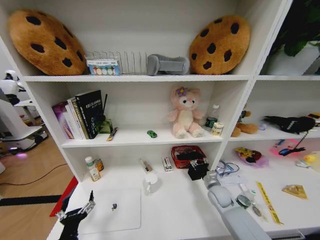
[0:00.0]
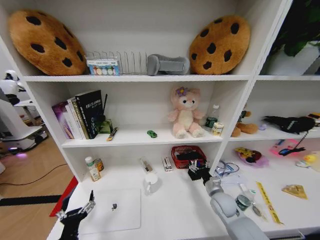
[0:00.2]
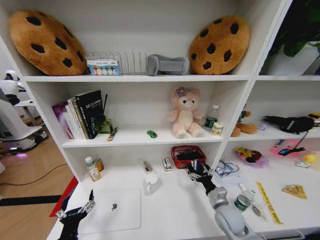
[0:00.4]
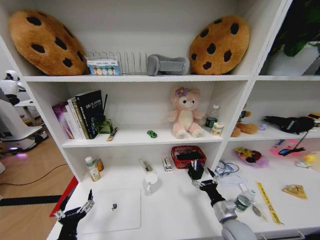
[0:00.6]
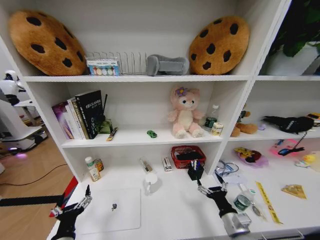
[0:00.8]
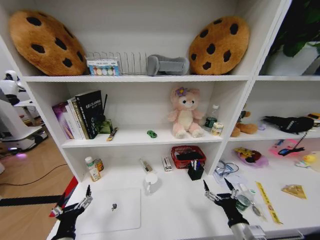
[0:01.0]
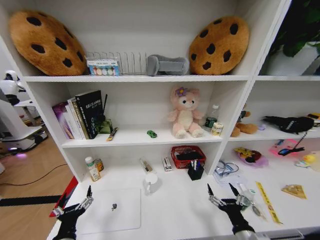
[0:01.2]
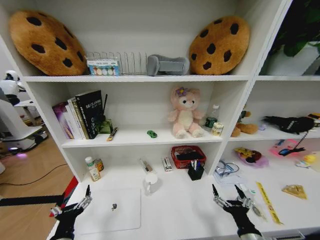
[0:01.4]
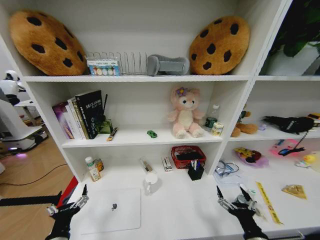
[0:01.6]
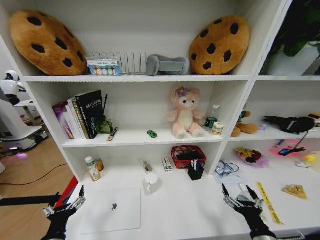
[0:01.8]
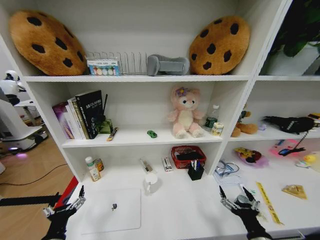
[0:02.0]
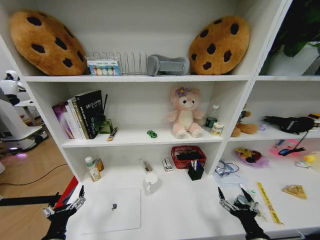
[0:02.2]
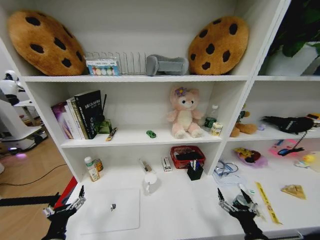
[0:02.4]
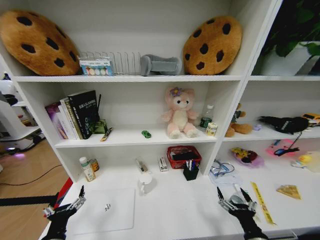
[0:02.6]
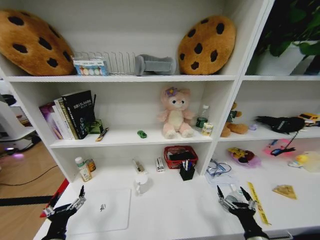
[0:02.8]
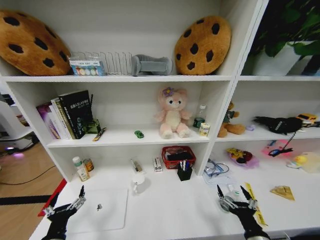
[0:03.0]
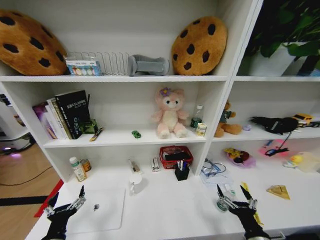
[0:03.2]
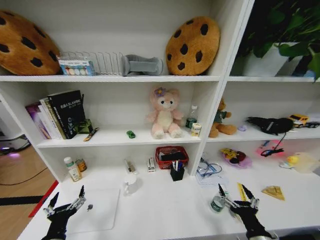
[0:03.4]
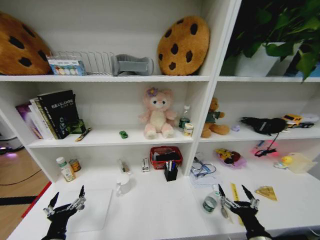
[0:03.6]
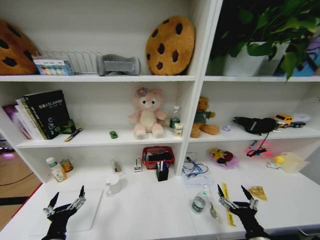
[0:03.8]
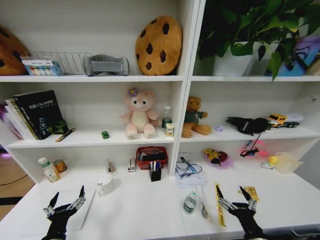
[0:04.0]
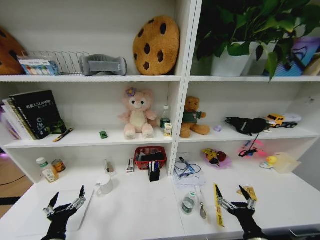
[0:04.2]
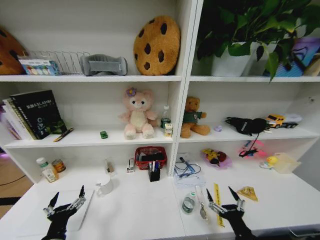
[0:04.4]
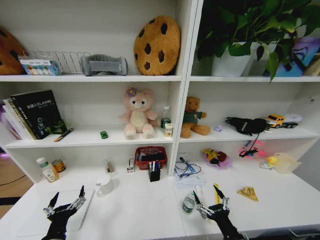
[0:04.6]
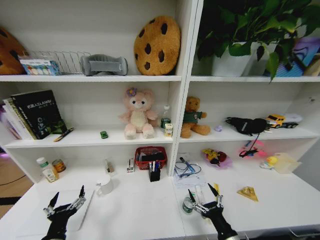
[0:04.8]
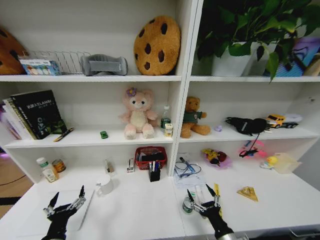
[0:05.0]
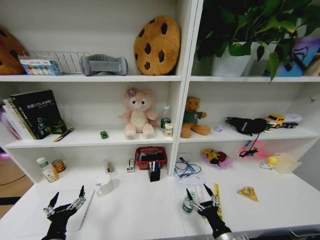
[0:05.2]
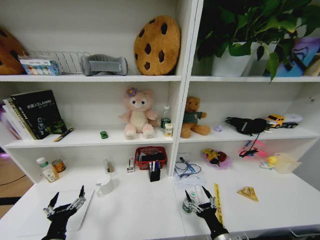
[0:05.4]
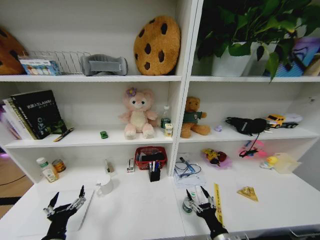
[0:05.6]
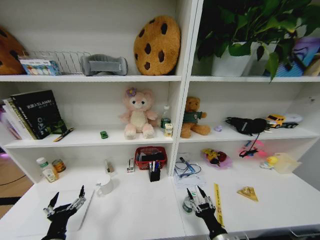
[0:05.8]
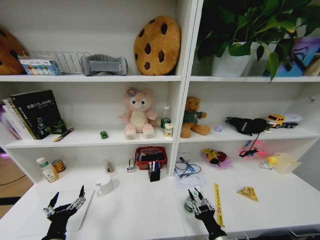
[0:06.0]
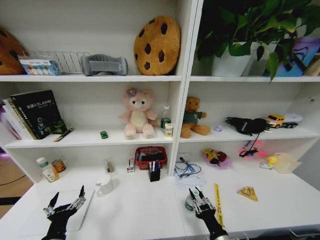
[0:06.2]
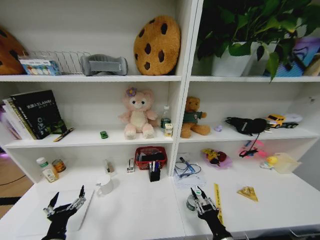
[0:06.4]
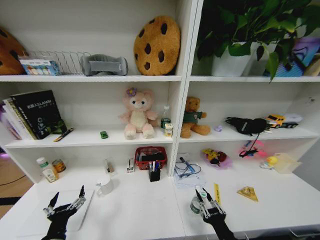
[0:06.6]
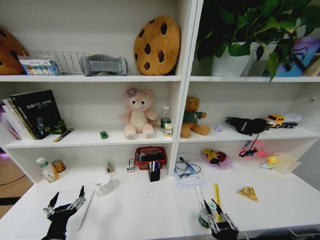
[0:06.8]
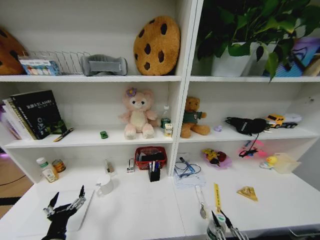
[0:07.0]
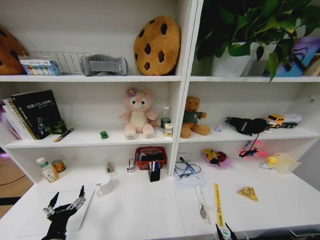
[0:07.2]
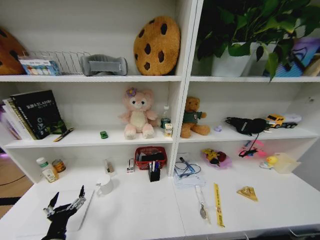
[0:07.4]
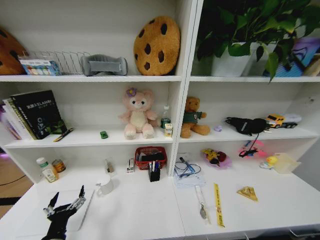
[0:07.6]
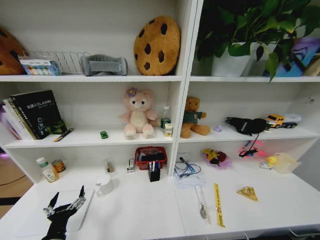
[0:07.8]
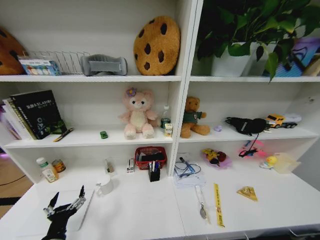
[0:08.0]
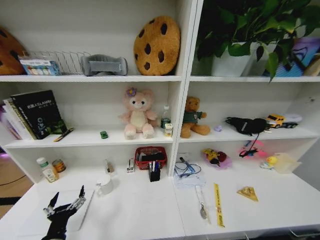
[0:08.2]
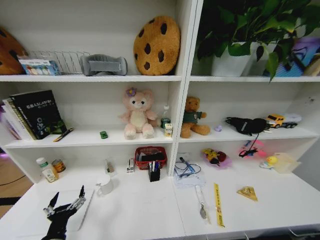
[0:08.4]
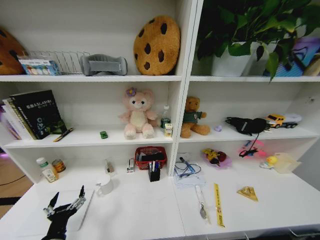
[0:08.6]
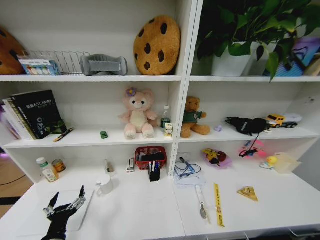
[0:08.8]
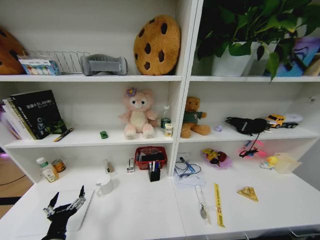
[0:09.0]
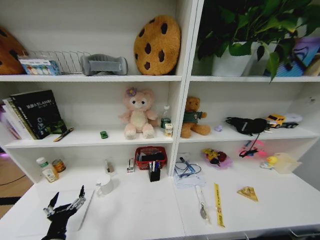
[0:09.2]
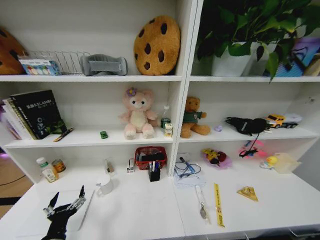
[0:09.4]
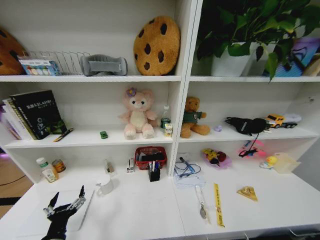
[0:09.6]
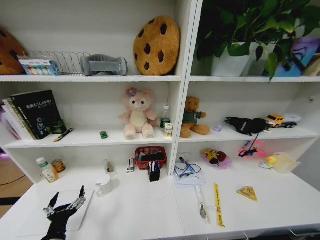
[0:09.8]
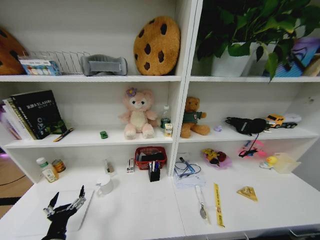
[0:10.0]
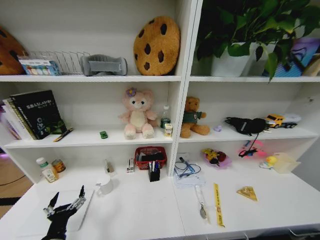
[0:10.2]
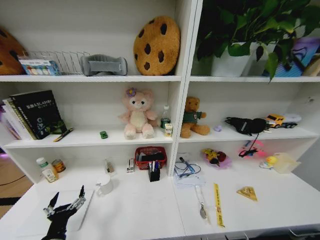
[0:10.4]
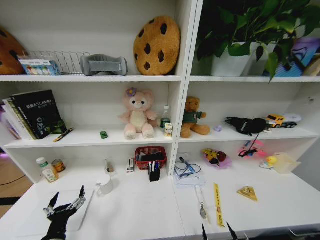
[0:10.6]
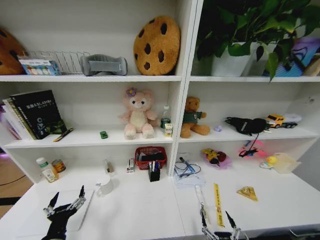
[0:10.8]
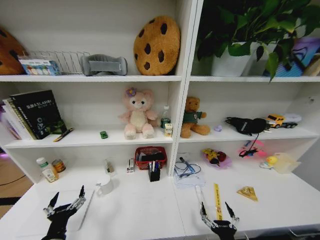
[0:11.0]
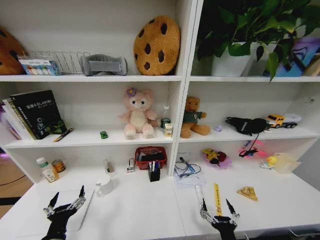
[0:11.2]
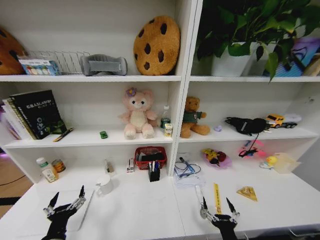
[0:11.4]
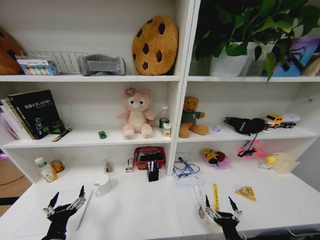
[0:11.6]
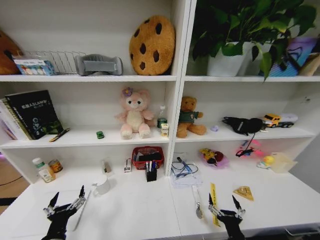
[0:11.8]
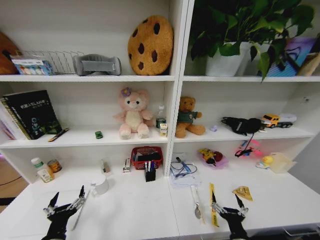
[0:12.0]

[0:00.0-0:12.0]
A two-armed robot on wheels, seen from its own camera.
Task of the whole recording: Organize the objects on the table.
0:00.0 to 0:01.6: The right gripper heads backward, covering approximately 25 cm, and opens.
0:04.4 to 0:06.0: The right gripper ends up some 5 cm from where it was, and closes up.
0:06.0 to 0:07.6: The right gripper goes roughly 20 cm backward.
0:09.0 to 0:10.4: The right gripper goes roughly 30 cm upward and backward, and opens up.
0:10.4 to 0:12.0: The right gripper travels forward by approximately 15 cm.

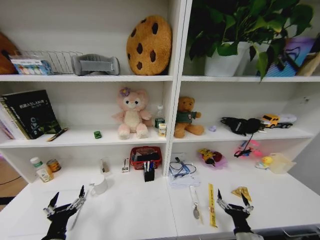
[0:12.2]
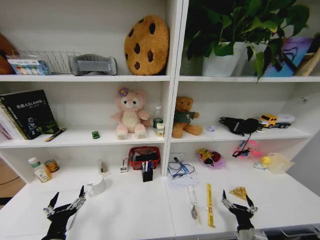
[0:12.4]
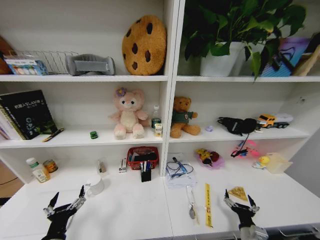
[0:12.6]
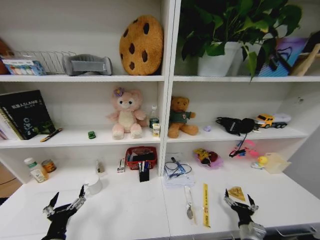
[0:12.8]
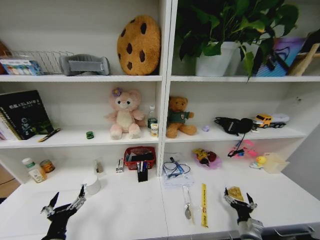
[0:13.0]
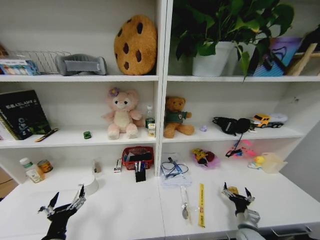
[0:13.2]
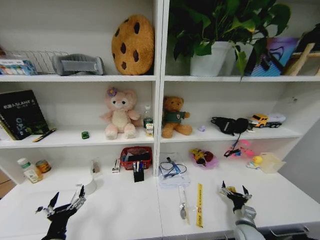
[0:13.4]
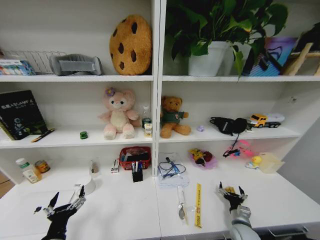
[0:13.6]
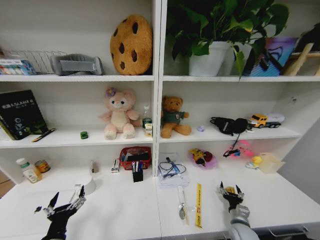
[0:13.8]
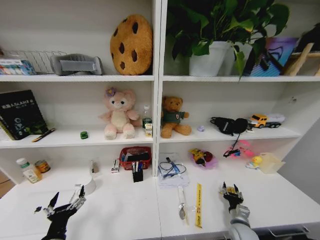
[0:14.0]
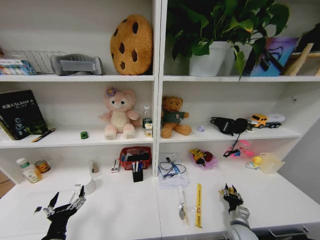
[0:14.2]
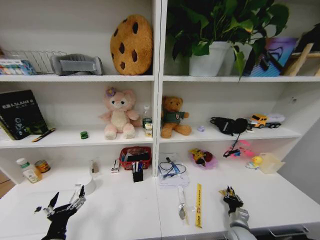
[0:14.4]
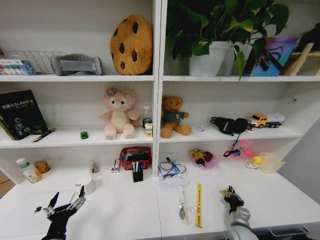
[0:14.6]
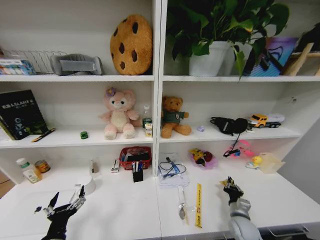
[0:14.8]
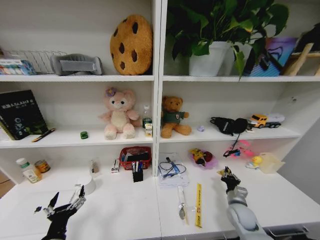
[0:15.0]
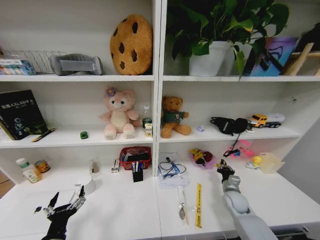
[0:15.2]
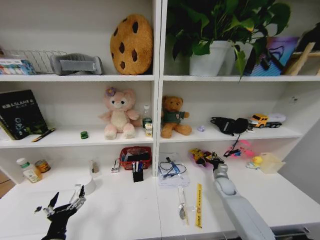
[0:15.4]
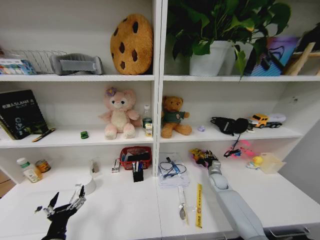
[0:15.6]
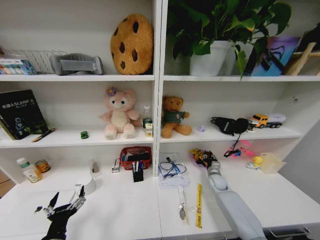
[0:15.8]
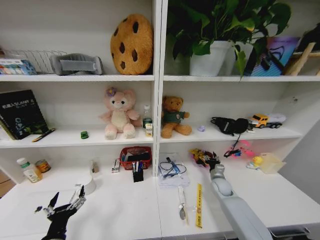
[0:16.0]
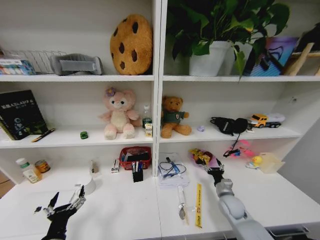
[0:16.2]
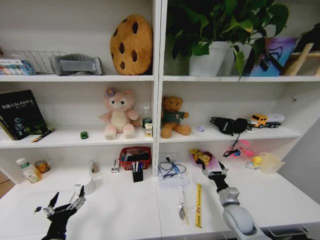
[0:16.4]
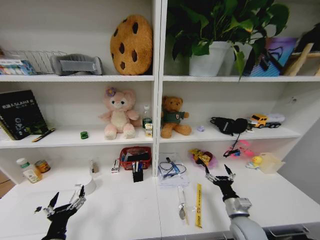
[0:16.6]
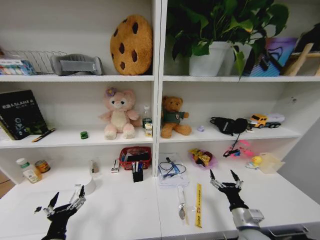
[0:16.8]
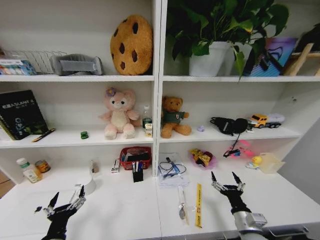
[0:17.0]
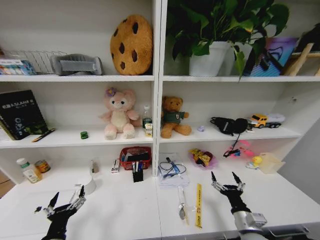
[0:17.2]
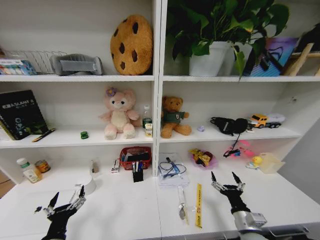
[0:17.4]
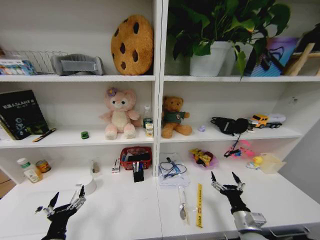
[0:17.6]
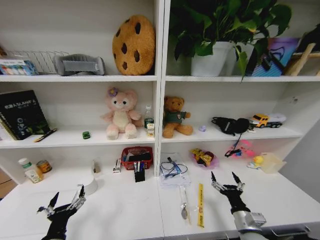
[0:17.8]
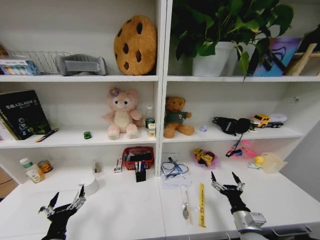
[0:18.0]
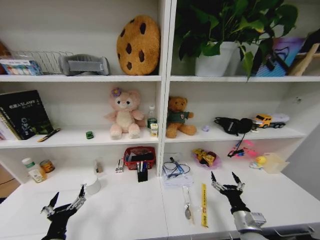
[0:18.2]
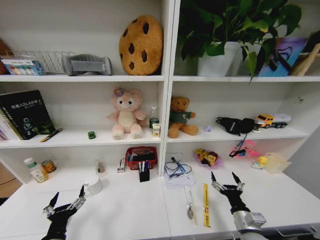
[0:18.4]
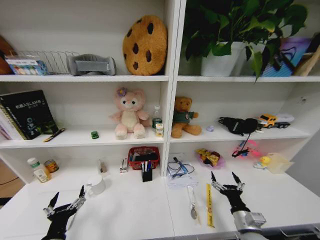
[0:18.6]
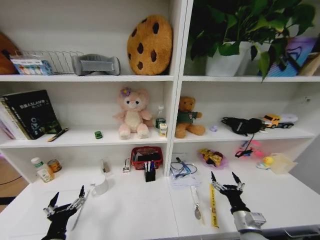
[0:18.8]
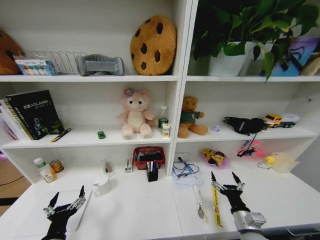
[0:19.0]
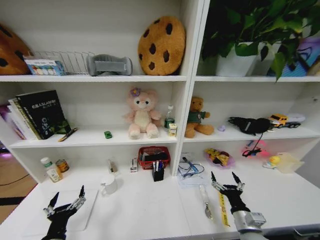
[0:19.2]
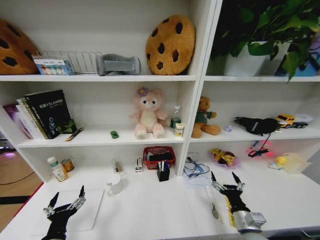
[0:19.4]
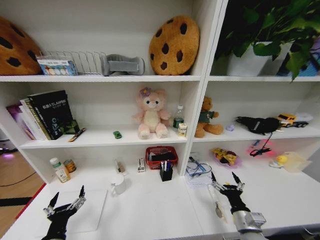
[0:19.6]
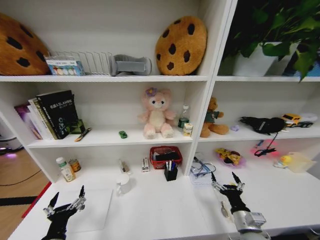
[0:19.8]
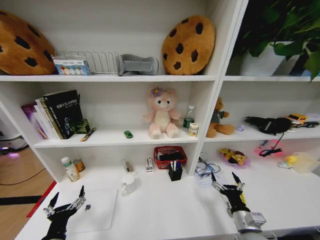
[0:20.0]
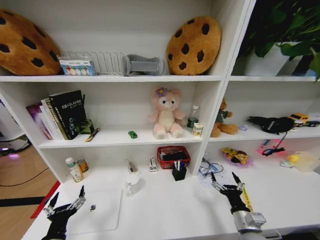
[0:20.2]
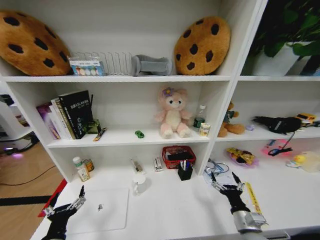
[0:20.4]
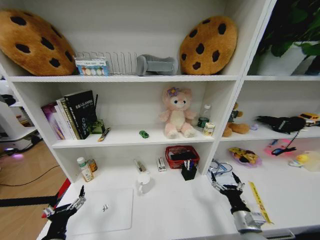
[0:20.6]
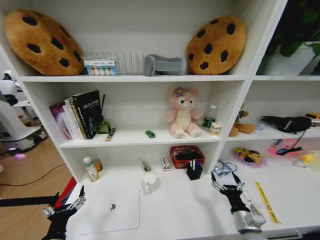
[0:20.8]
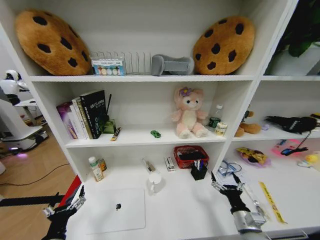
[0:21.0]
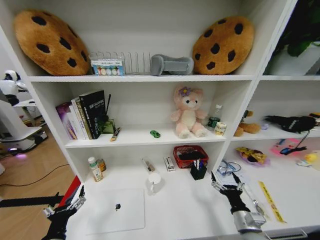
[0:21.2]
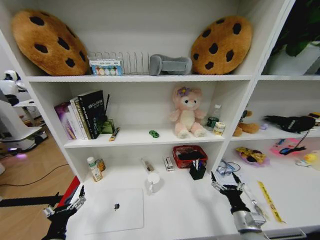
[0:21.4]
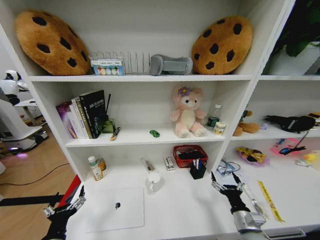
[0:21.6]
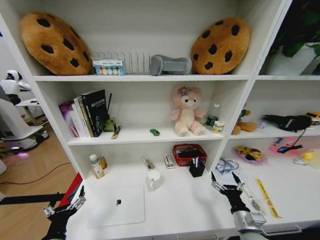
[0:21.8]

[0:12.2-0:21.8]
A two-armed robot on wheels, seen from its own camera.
Task of the whole recording: Organize the objects on the table.
0:12.2 to 0:13.8: The right gripper heads forward, downward and to the right, covering roughly 15 cm.
0:13.8 to 0:15.4: The right gripper moves forward, roughly 20 cm, and closes its fingers.
0:15.4 to 0:17.0: The right gripper heads backward, covering some 25 cm, and opens its fingers.

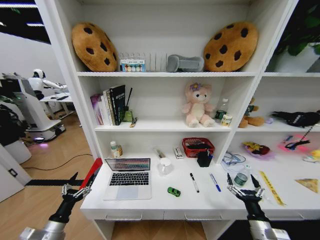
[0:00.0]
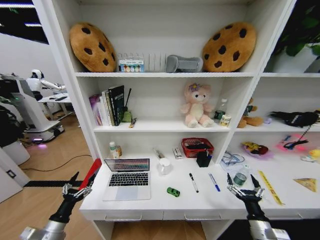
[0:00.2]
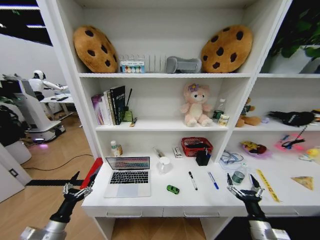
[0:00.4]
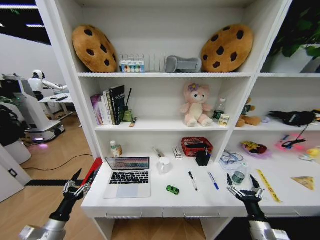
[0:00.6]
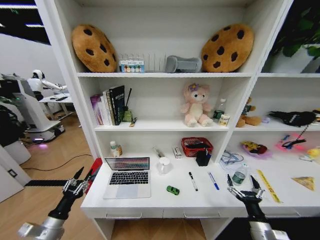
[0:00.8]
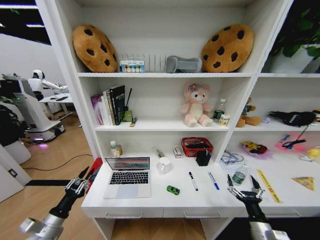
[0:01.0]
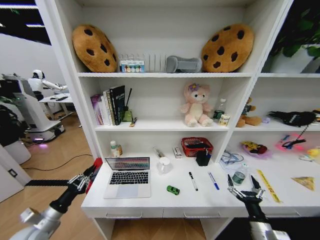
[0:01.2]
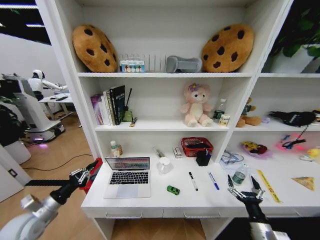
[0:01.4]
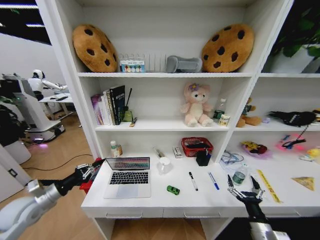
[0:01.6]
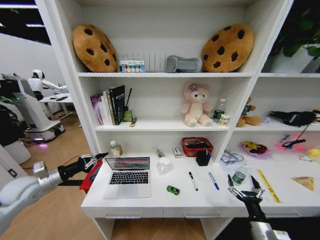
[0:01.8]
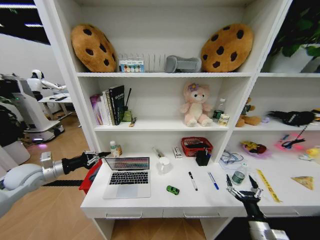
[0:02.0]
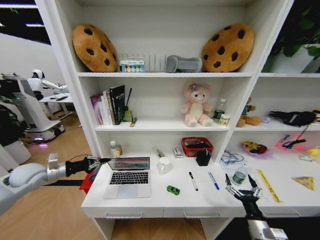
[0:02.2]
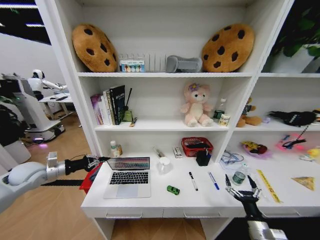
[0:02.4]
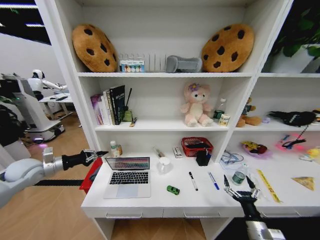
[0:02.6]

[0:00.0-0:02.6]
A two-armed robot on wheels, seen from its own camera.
Task of the whole recording: Organize the objects on the table.
0:00.0 to 0:01.2: The left gripper moves about 5 cm, and closes.
0:01.2 to 0:02.6: The left gripper goes approximately 25 cm forward and upward.
